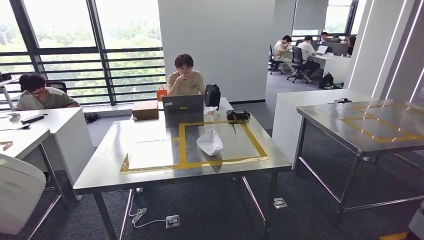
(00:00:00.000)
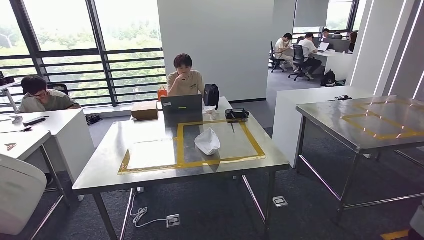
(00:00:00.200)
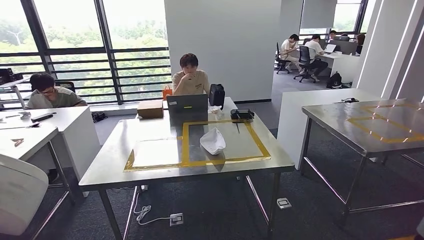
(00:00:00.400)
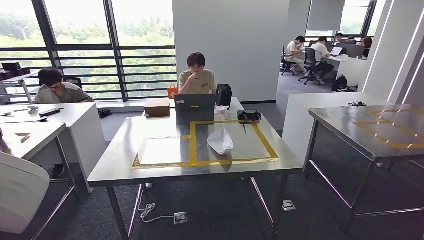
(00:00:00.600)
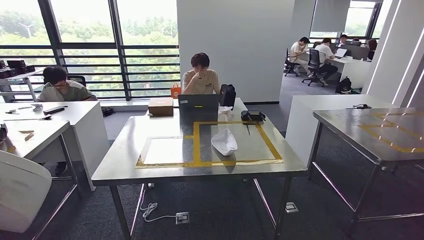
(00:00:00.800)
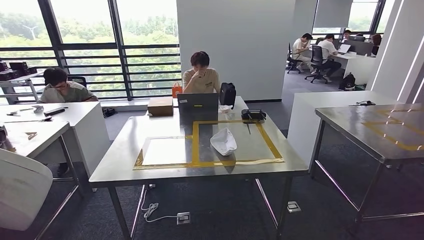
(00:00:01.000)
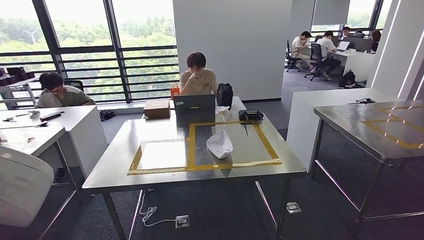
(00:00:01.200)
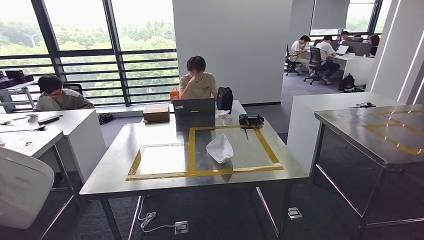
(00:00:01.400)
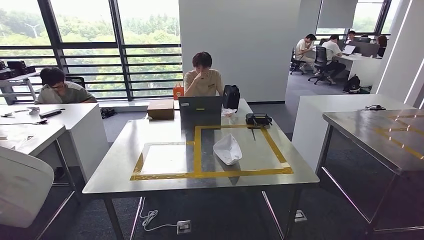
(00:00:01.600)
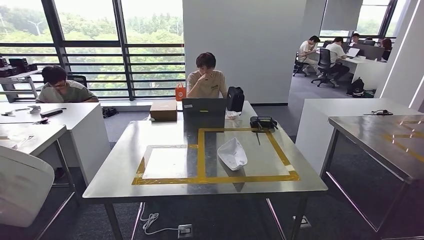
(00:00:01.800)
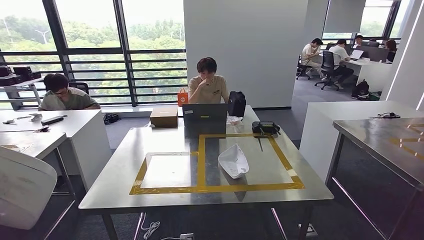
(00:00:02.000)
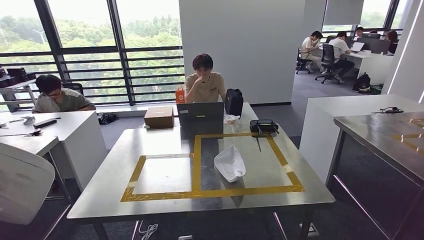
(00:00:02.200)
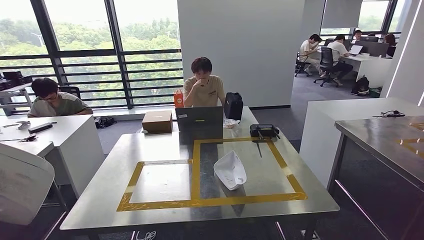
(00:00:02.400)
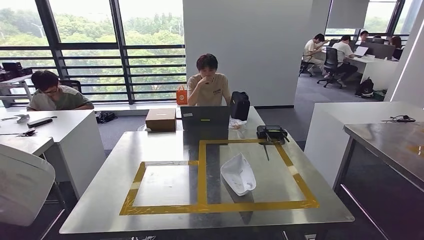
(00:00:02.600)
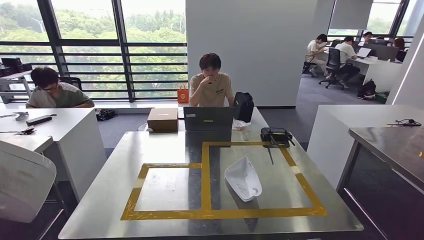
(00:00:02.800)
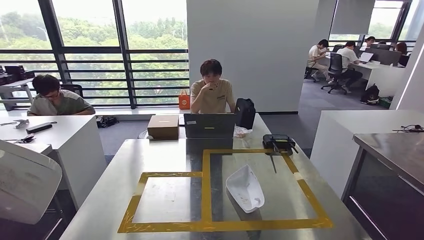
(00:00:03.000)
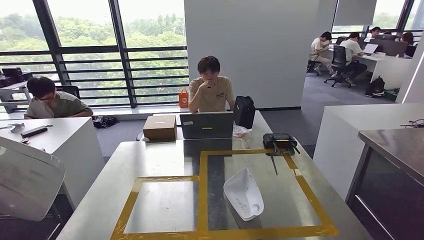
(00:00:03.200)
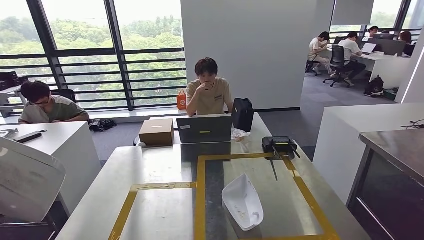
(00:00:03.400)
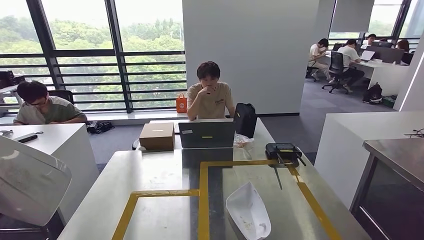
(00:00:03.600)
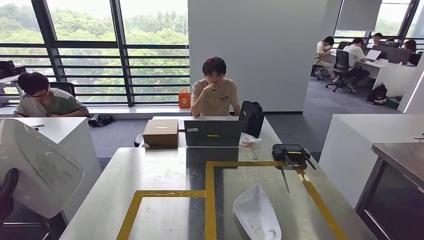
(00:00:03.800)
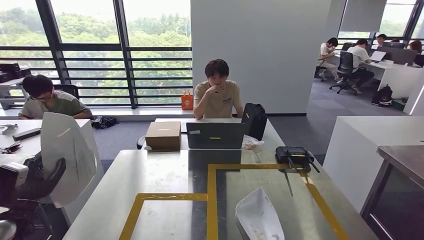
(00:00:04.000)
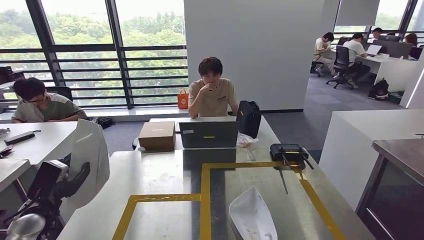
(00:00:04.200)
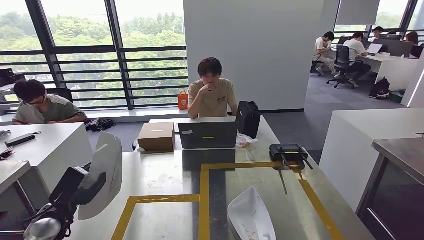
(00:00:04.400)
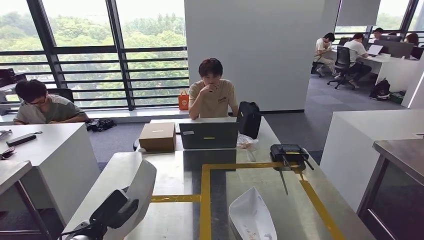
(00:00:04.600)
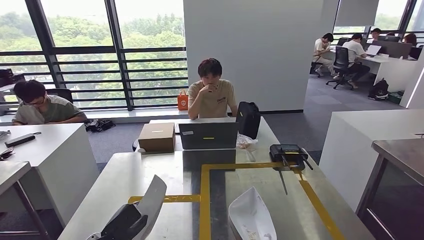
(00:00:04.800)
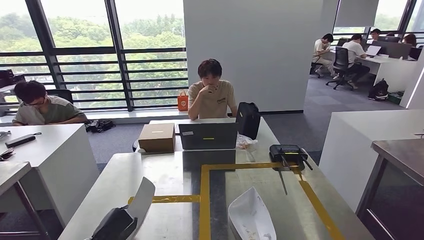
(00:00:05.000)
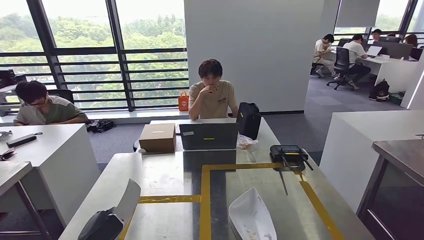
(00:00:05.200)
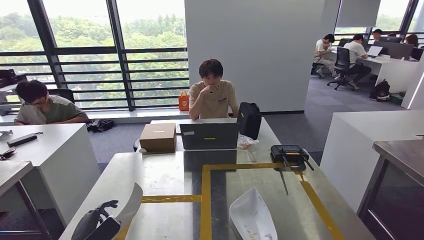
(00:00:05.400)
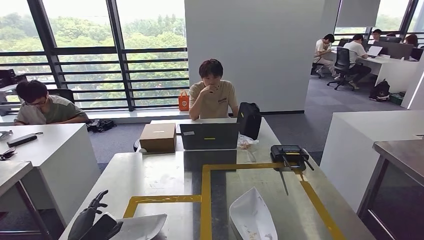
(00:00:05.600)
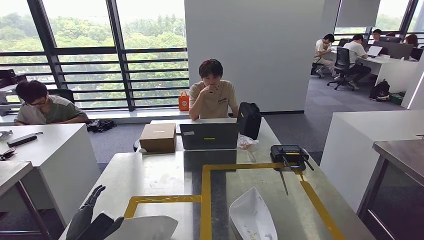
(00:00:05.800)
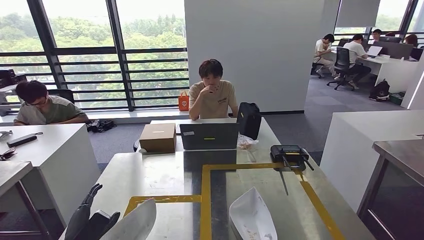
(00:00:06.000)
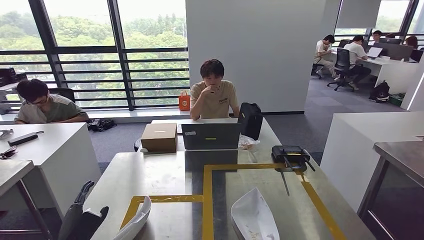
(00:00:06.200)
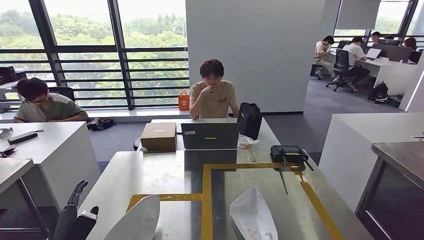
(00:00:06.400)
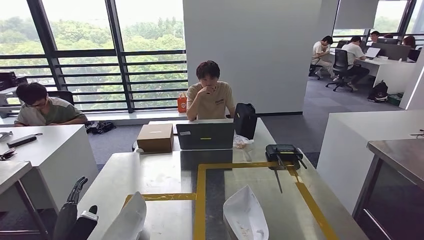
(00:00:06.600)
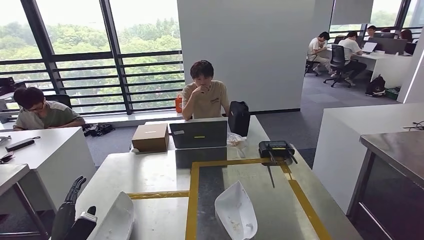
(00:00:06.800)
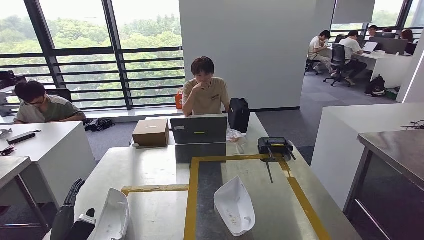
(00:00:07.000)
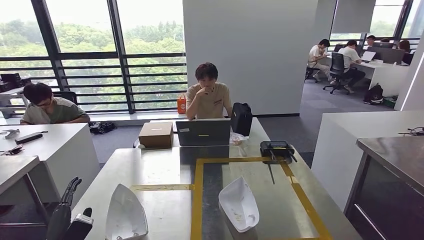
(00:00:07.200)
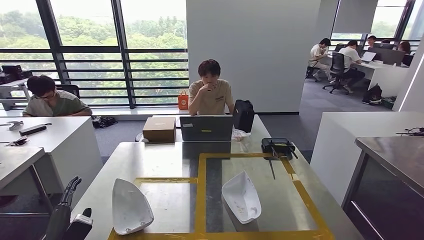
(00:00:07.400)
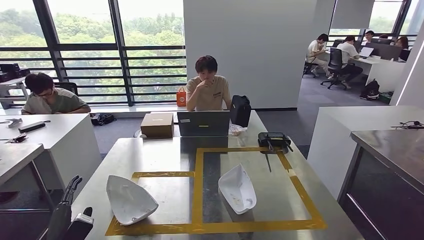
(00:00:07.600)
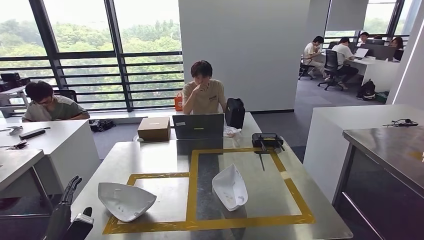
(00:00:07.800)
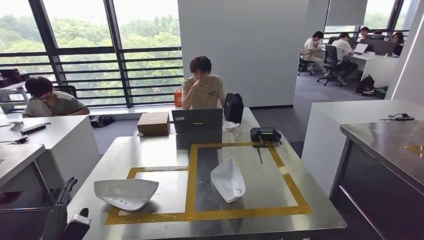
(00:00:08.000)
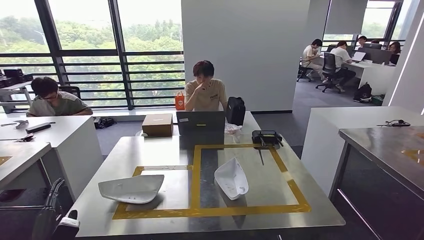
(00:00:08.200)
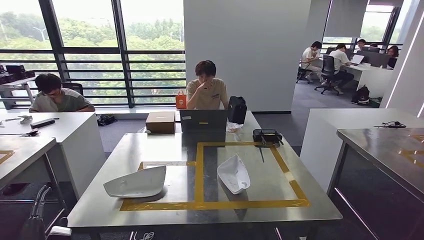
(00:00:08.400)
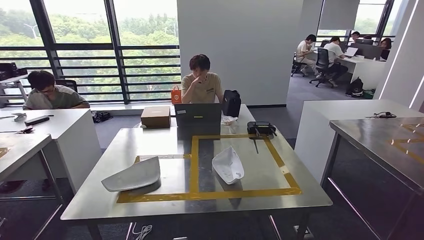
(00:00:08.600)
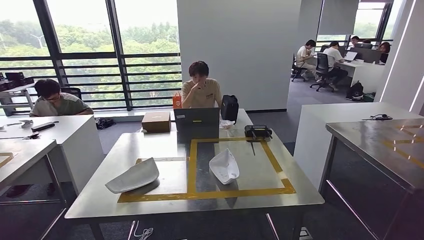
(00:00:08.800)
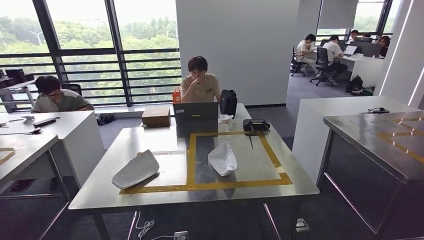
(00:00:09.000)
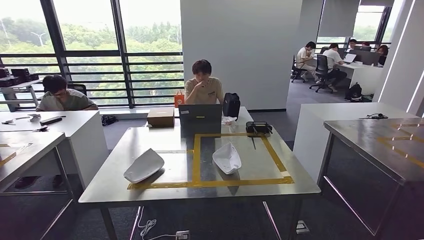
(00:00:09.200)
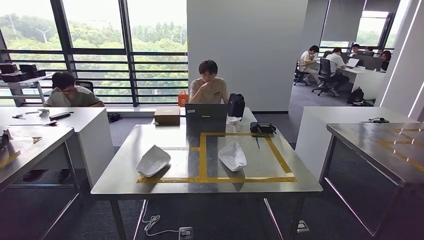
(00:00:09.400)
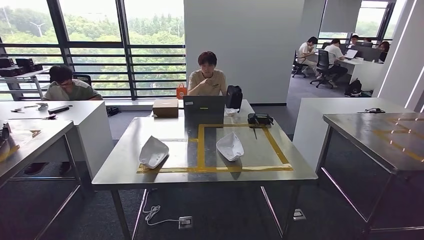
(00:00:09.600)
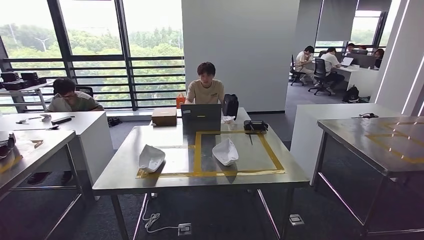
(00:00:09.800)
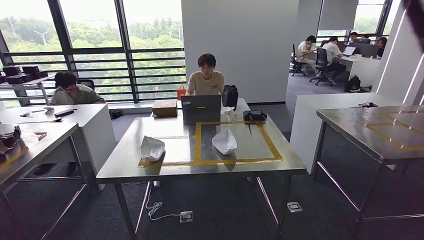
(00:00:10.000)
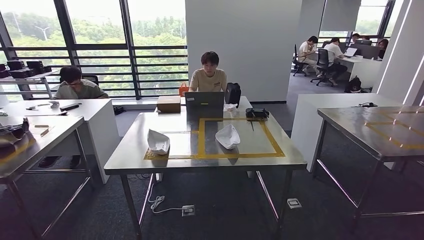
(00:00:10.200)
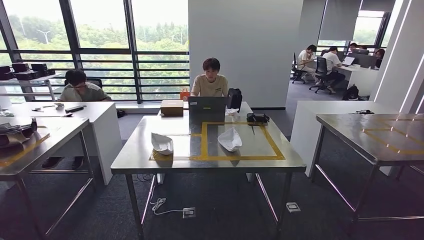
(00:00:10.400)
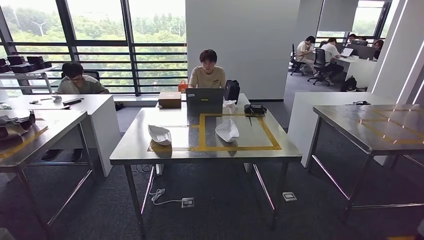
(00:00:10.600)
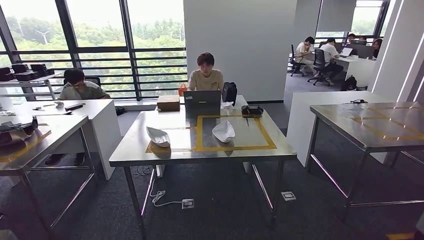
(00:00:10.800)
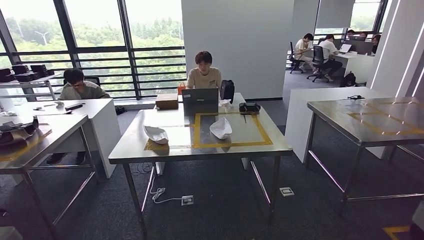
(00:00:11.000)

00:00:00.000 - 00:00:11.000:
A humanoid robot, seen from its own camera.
Step, 00:00:03.200 - 00:00:06.200: Insert the small component into the corresponding slot on the workbench.
Step, 00:00:07.400 - 00:00:11.000: Move to the initial position at the workbench.
00:00:04.800 - 00:00:06.200: The left hand is displaced to the left by about 5 cm.
